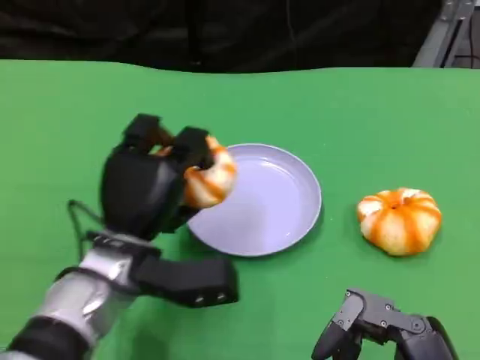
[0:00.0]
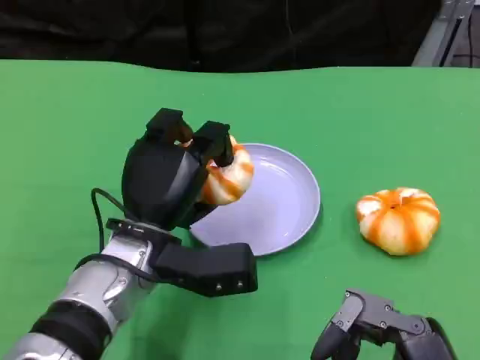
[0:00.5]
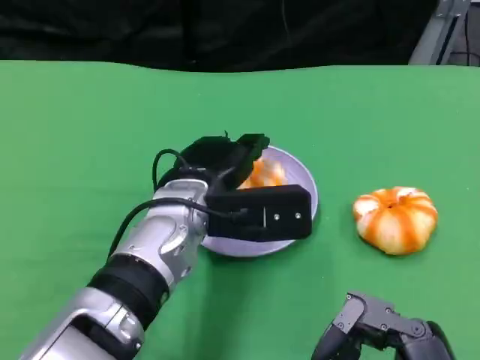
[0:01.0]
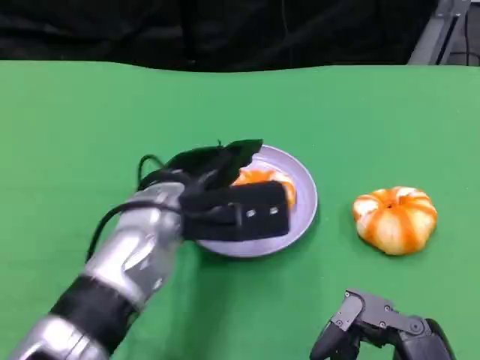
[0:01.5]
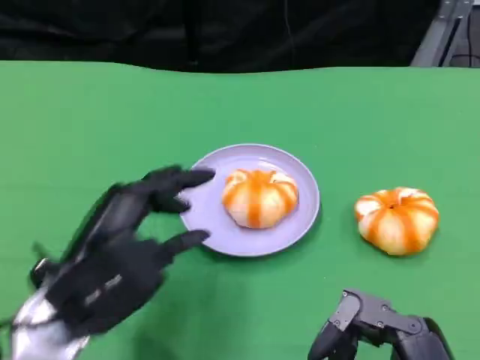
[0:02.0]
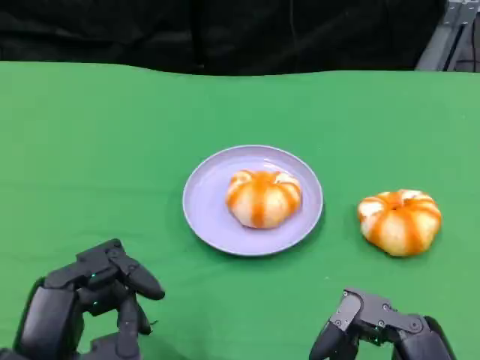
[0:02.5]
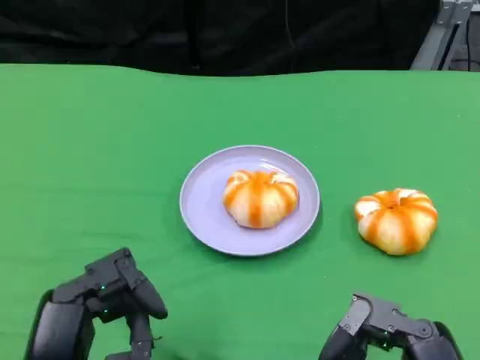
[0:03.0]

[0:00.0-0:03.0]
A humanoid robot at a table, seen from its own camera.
Task of the whole recording: Grasp the bread from the table and place it into the plate.
0:00.0 to 0:01.5: The left hand travels upward by roughly 5 cm.
0:01.5 to 0:03.0: The left hand moves backward and to the left, roughly 20 cm.

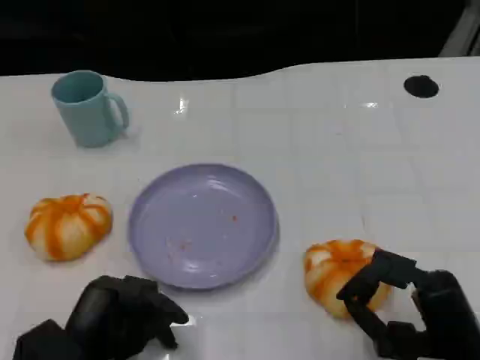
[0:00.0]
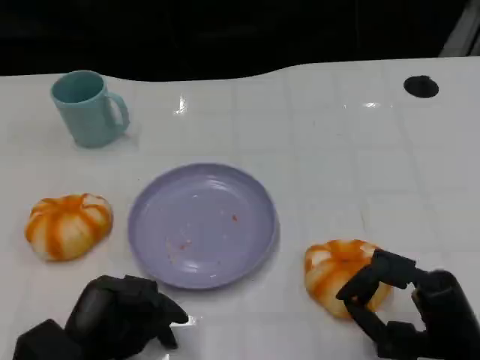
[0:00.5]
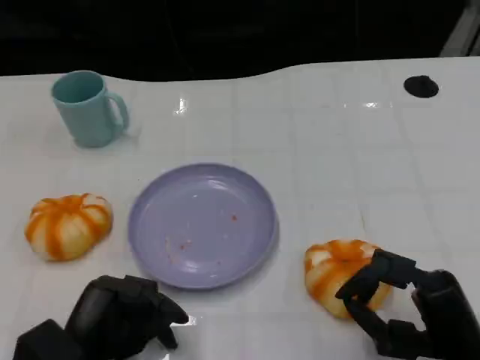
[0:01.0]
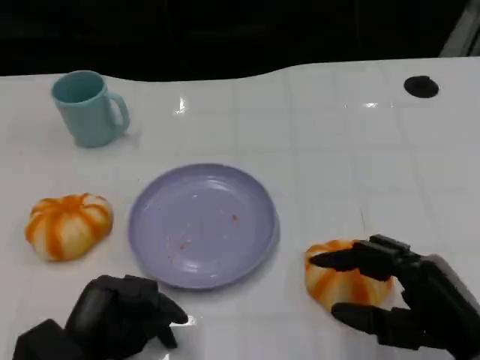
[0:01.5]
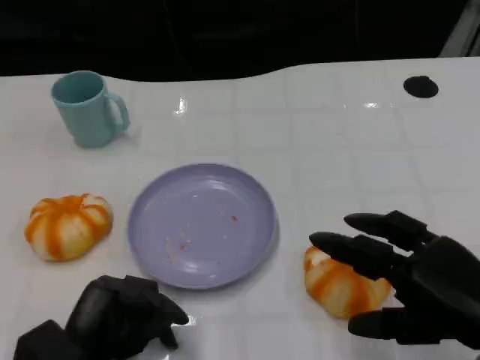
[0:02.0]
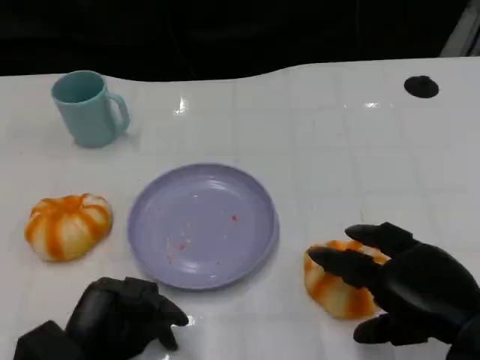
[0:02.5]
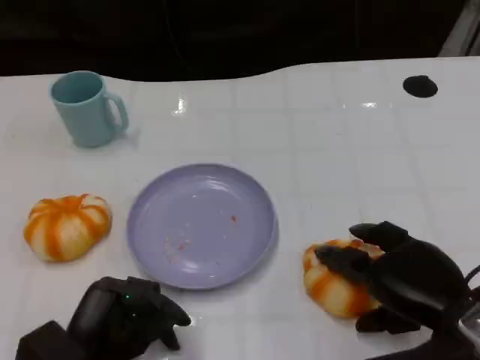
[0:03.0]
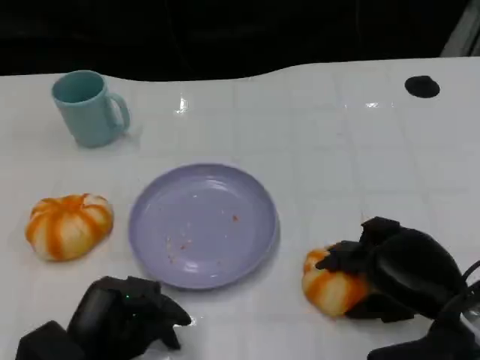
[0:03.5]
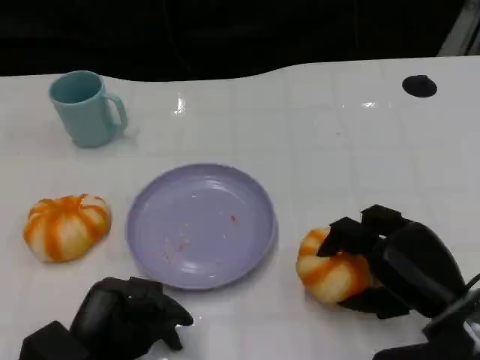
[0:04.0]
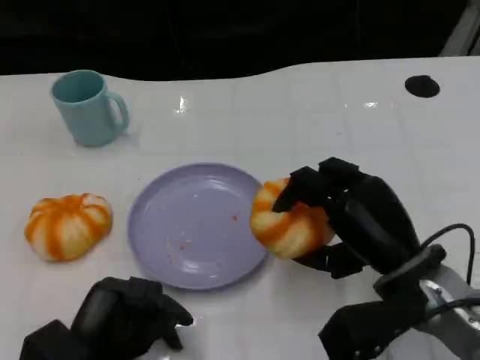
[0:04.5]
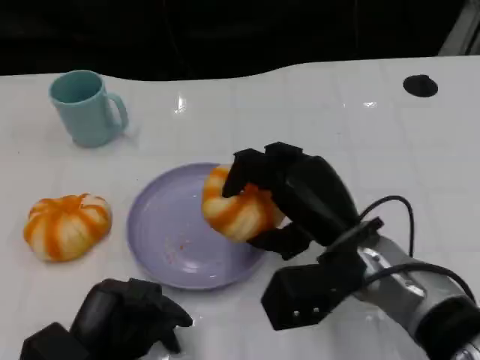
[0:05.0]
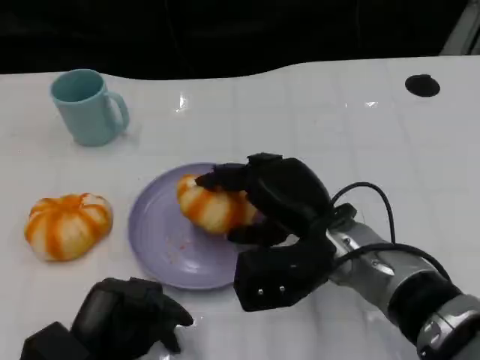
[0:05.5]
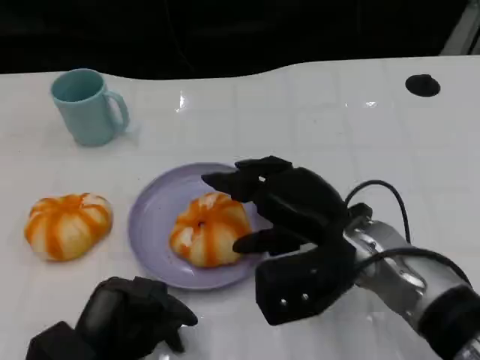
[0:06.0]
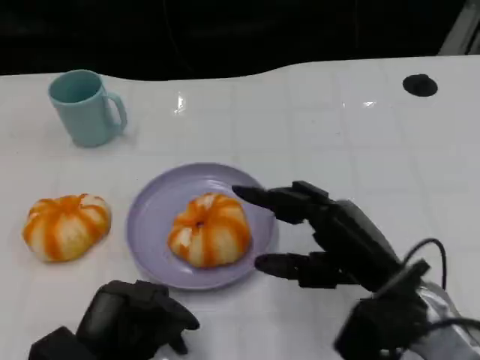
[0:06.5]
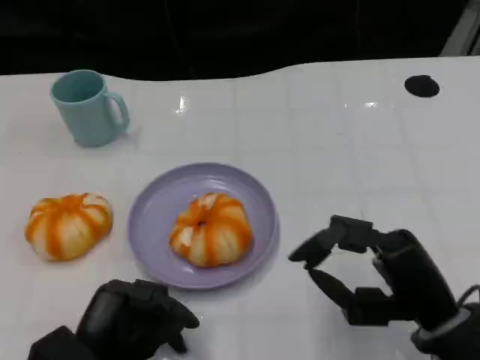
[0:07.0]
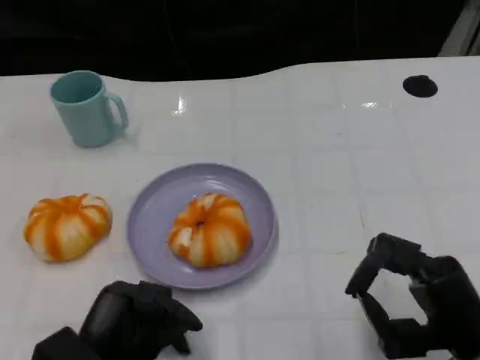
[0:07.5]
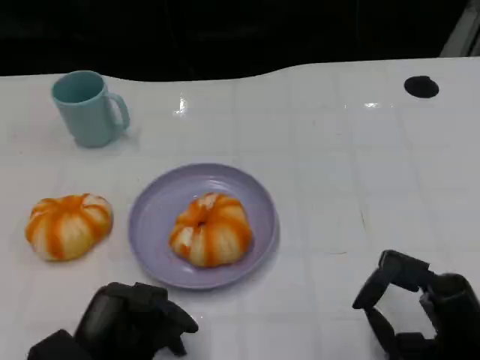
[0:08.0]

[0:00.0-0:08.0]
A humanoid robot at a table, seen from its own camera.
Task of the whole recording: Grasp the bread from the table and place it into the plate.
0:00.0 to 0:02.0: The right hand goes about 10 cm upward.
0:02.0 to 0:04.0: The right hand moves downward and forward, some 10 cm.
0:04.0 to 0:06.0: The right hand goes some 10 cm to the left, forward and upward.
0:06.0 to 0:08.0: The right hand is displaced to the right, backward and downward by roughly 15 cm.

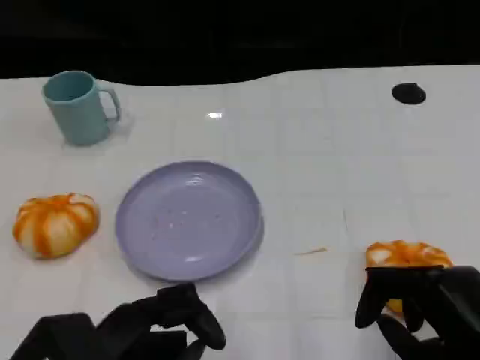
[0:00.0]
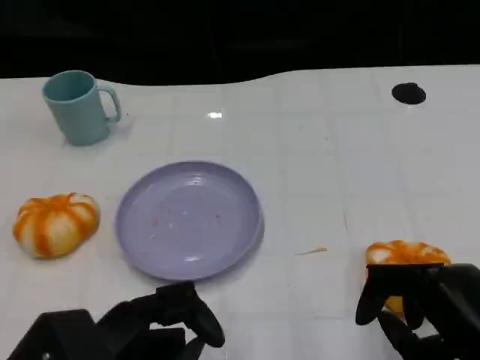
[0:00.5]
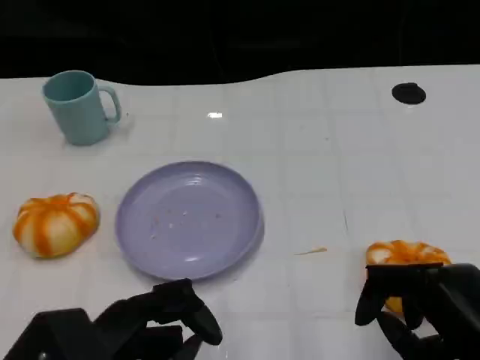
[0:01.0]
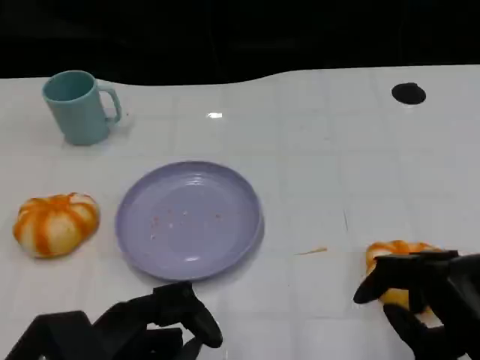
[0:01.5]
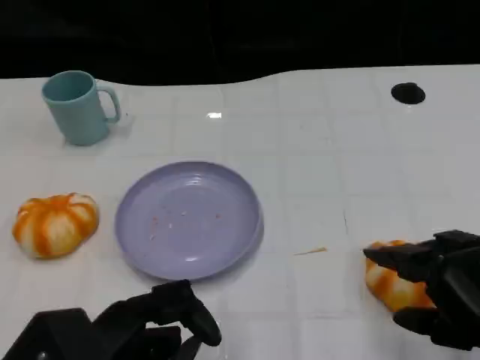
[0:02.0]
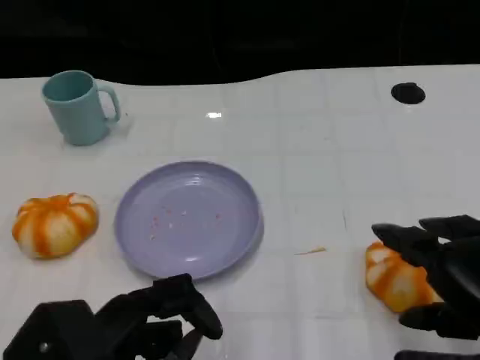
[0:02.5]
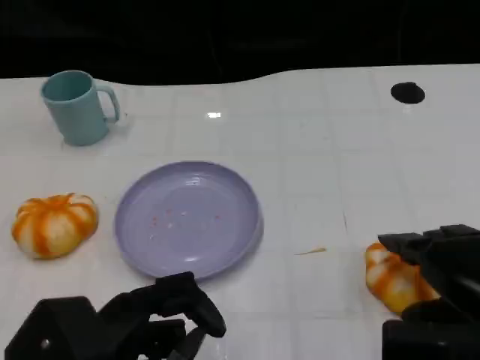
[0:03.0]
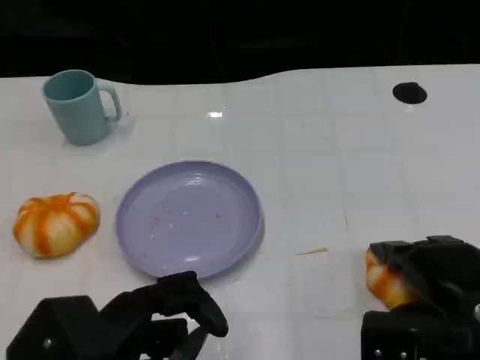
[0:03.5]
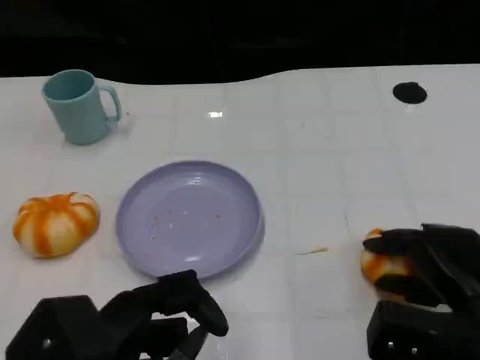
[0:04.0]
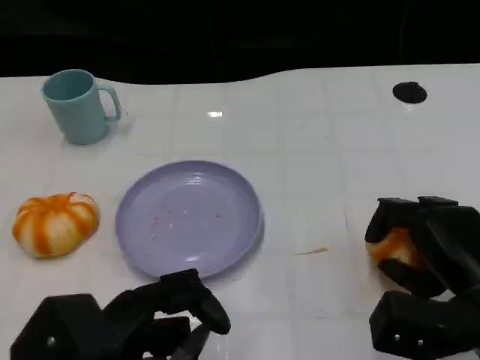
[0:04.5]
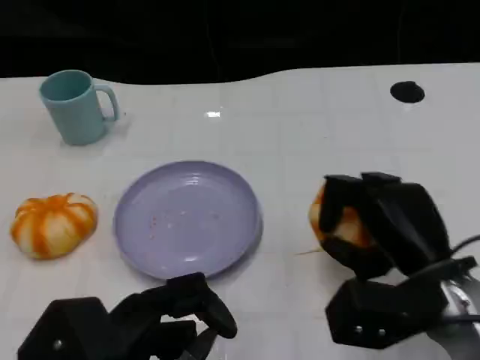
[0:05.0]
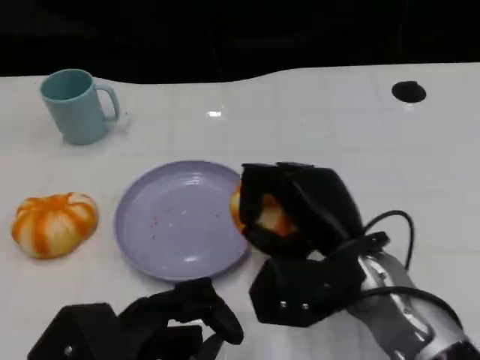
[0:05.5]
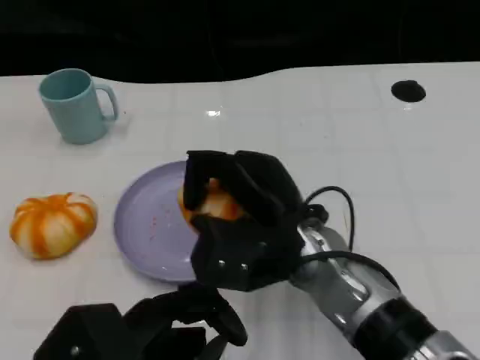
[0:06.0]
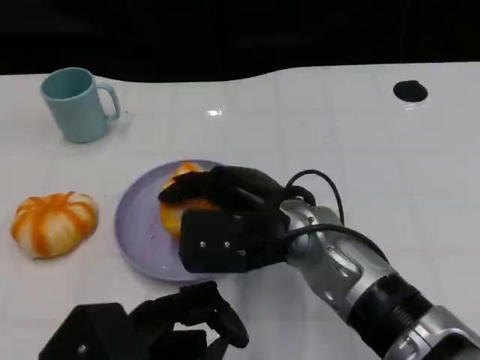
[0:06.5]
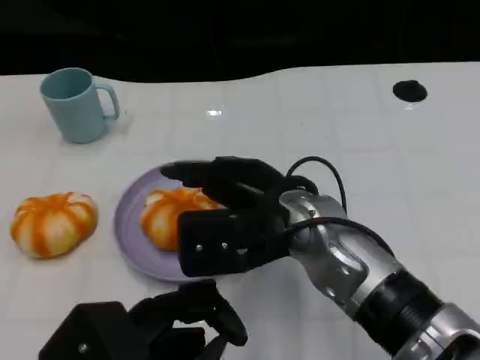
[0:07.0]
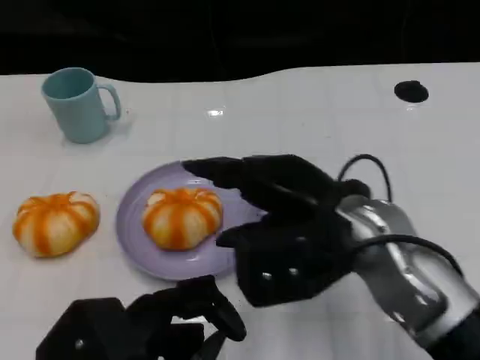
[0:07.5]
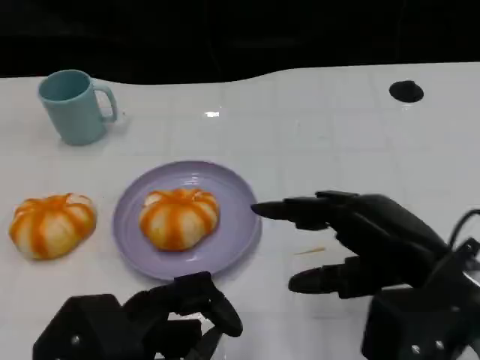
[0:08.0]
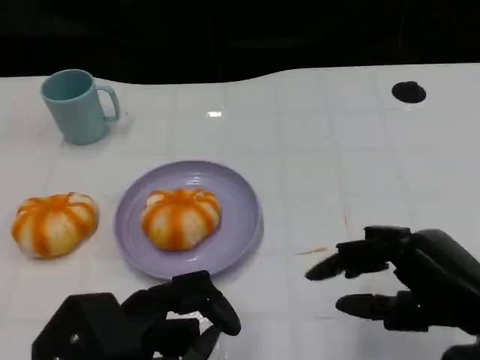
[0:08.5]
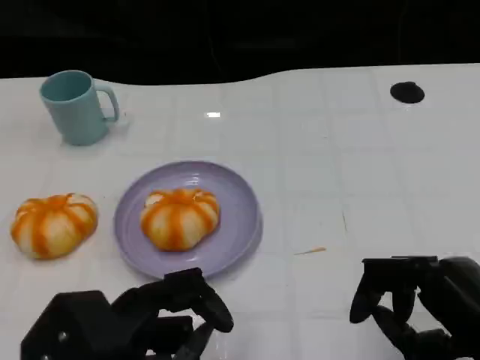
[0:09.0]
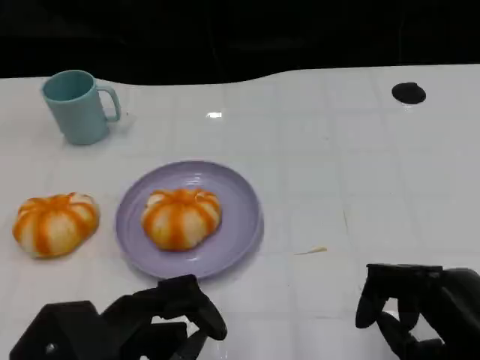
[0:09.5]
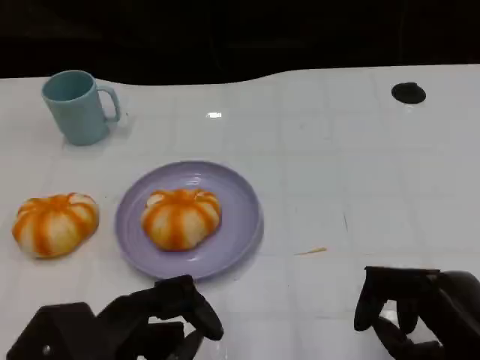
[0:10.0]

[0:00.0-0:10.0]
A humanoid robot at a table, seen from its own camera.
Task of the whole recording: Grasp the bread from the table and place it into the plate.
0:02.0 to 0:04.0: The right hand is displaced downward and forward by about 10 cm.
0:04.0 to 0:06.0: The right hand heads to the left, covering some 20 cm.
0:06.0 to 0:08.0: The right hand moves to the right and backward, roughly 15 cm.
0:08.0 to 0:10.0: The right hand goes some 10 cm backward and downward.

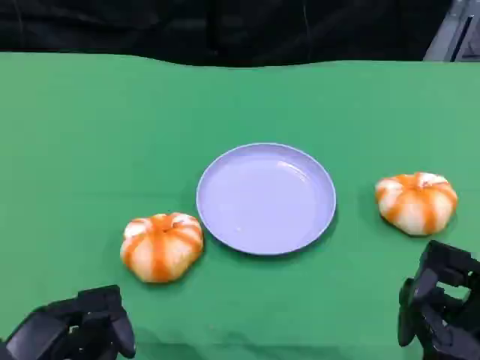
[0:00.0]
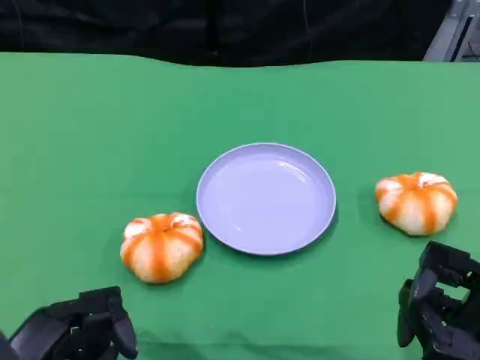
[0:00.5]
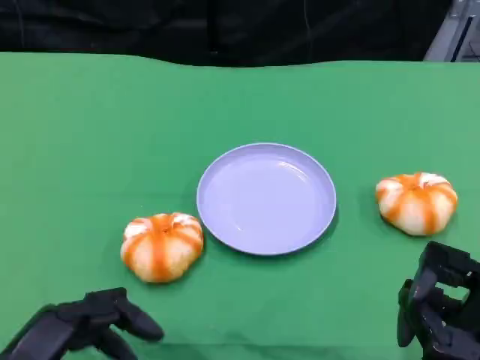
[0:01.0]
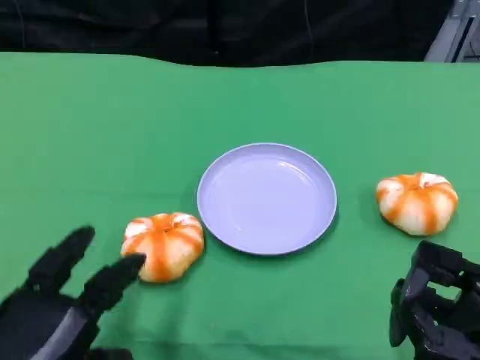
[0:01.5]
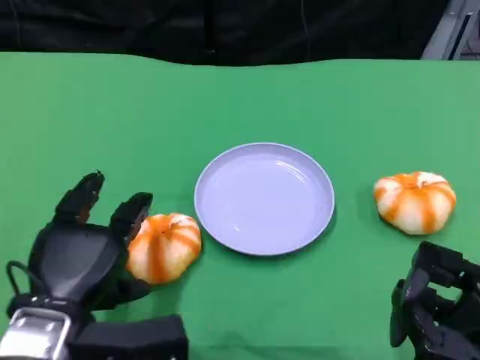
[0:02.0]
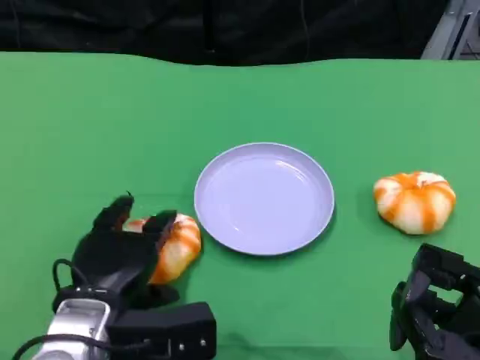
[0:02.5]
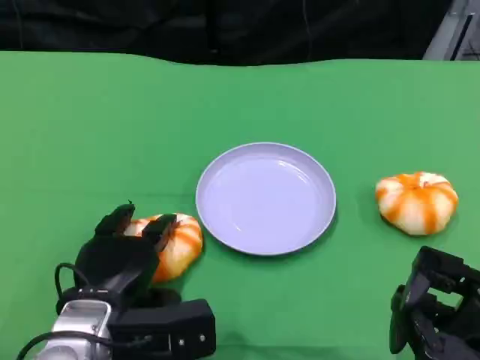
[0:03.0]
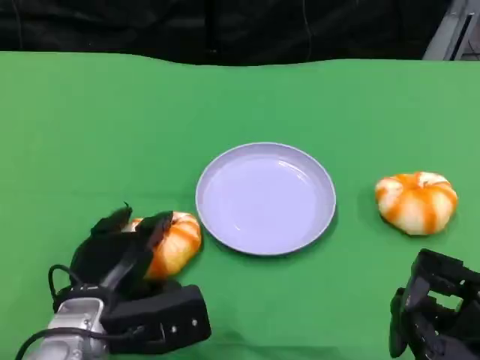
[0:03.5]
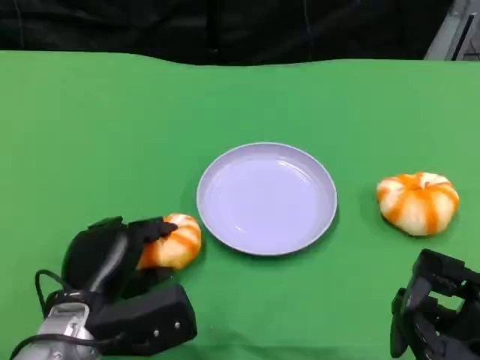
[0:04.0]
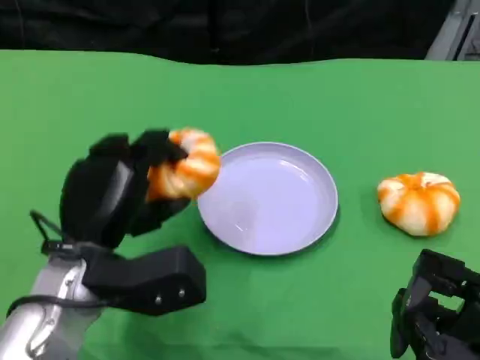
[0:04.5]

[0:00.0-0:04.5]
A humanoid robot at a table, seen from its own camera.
Task of the whole recording: Grasp the bread from the table and place it into the plate.
0:00.0 to 0:02.0: The left hand goes about 10 cm forward and to the right.
0:02.0 to 0:04.5: The left hand ends up about 5 cm from where it was.
